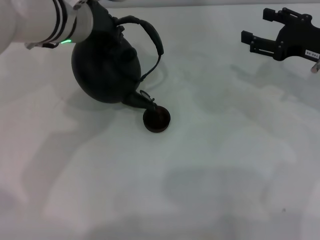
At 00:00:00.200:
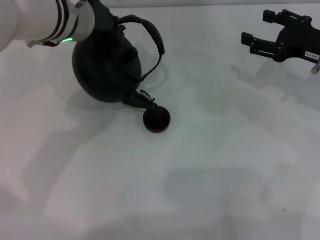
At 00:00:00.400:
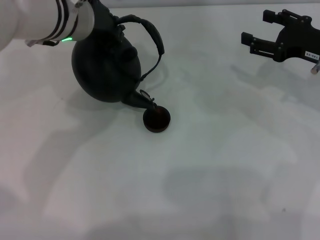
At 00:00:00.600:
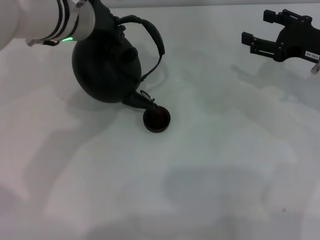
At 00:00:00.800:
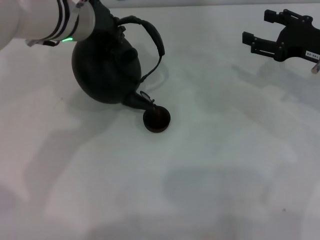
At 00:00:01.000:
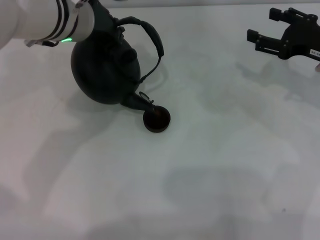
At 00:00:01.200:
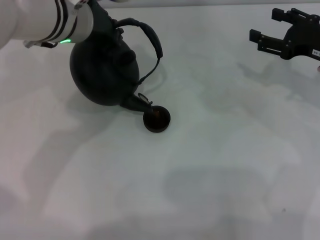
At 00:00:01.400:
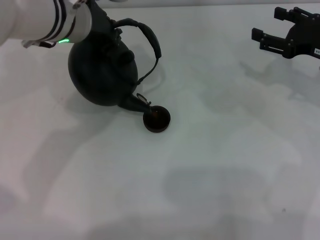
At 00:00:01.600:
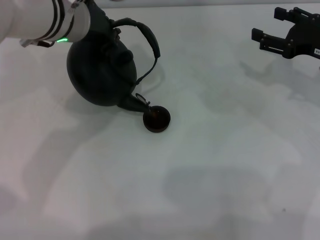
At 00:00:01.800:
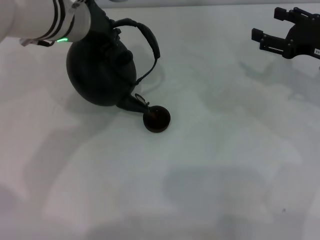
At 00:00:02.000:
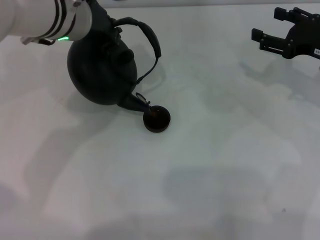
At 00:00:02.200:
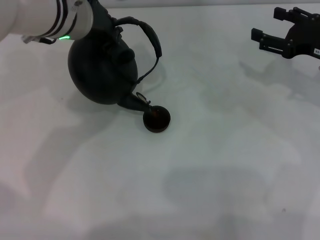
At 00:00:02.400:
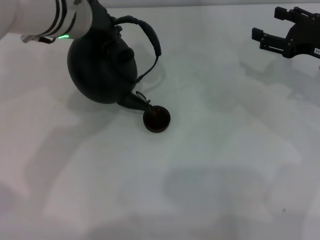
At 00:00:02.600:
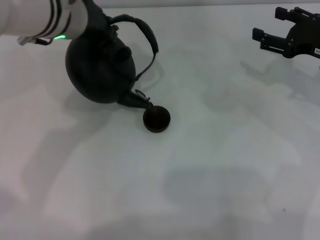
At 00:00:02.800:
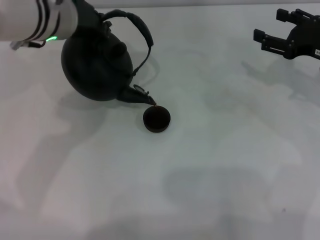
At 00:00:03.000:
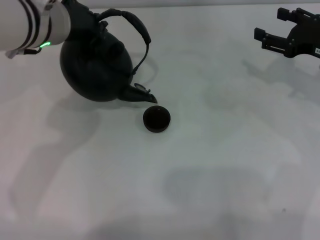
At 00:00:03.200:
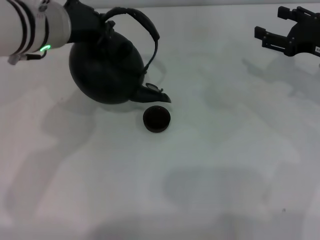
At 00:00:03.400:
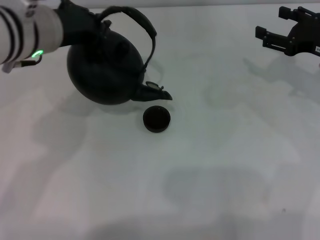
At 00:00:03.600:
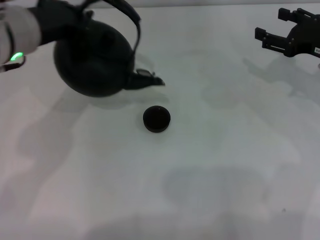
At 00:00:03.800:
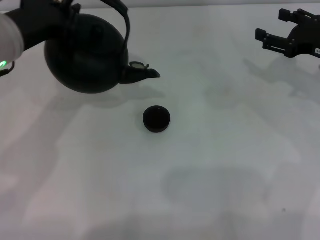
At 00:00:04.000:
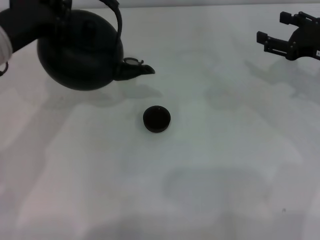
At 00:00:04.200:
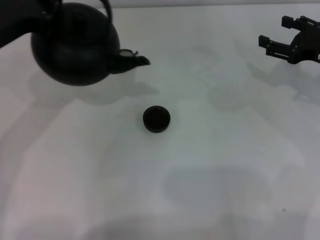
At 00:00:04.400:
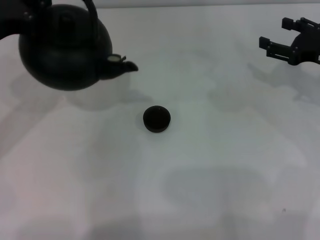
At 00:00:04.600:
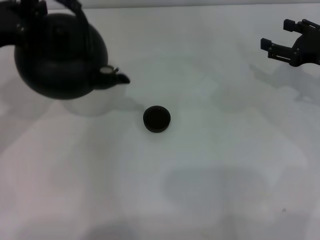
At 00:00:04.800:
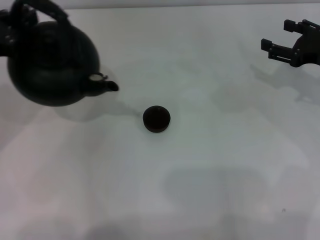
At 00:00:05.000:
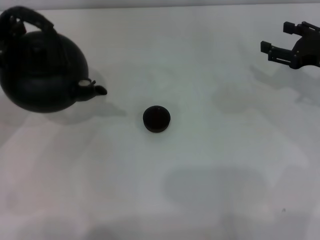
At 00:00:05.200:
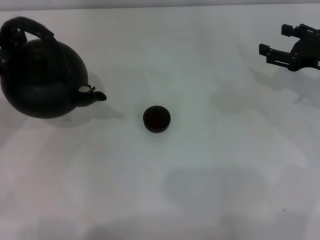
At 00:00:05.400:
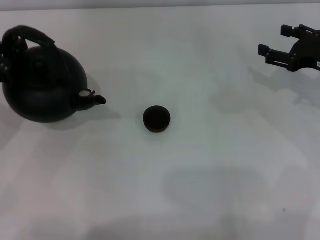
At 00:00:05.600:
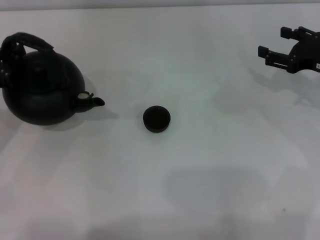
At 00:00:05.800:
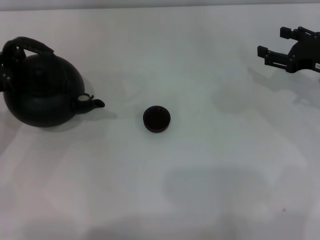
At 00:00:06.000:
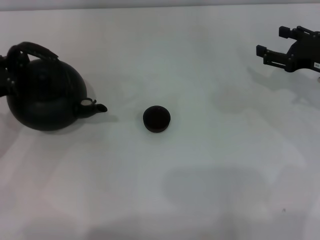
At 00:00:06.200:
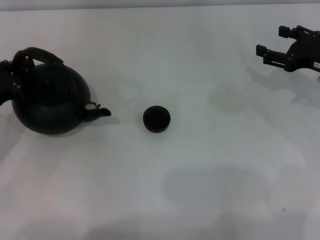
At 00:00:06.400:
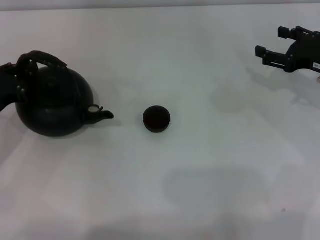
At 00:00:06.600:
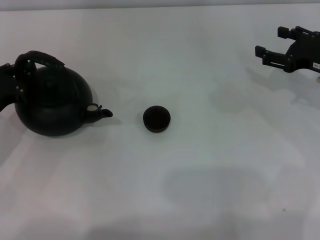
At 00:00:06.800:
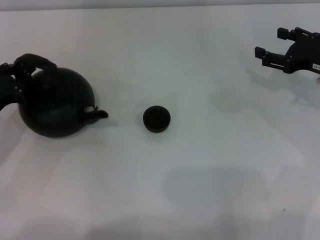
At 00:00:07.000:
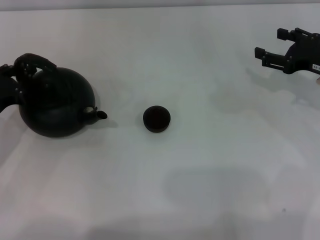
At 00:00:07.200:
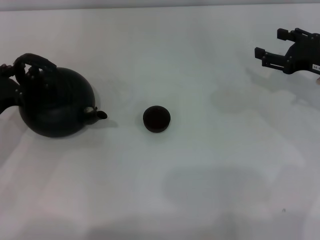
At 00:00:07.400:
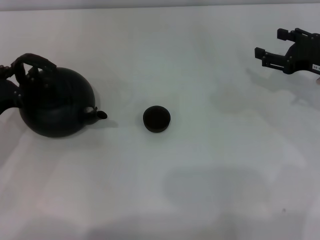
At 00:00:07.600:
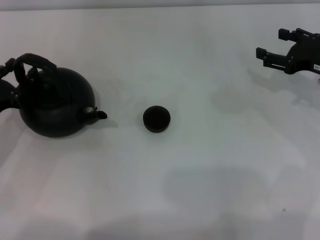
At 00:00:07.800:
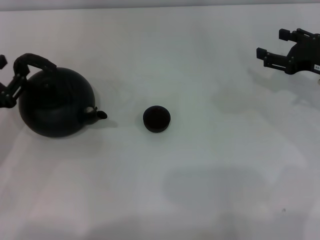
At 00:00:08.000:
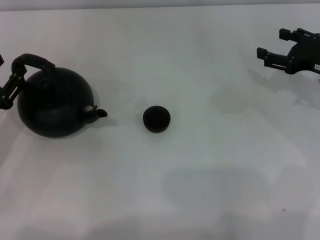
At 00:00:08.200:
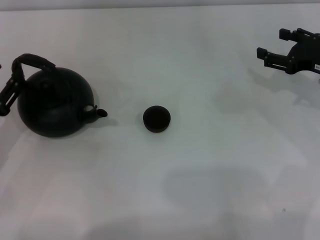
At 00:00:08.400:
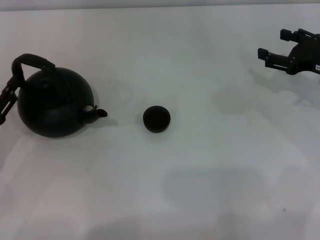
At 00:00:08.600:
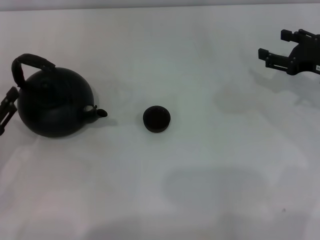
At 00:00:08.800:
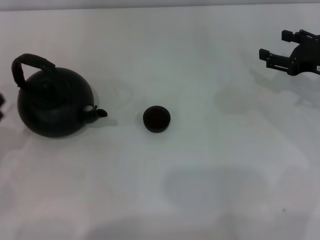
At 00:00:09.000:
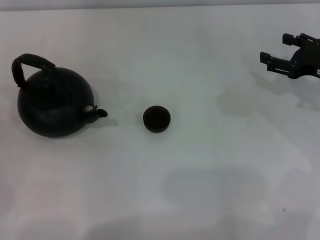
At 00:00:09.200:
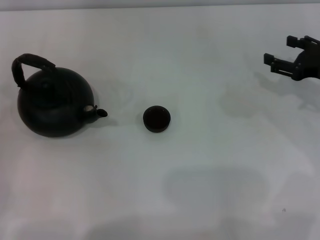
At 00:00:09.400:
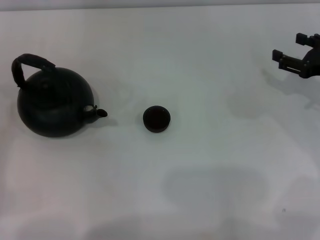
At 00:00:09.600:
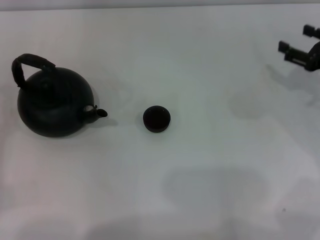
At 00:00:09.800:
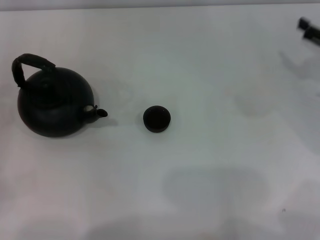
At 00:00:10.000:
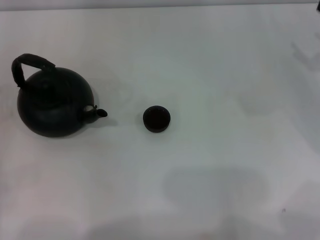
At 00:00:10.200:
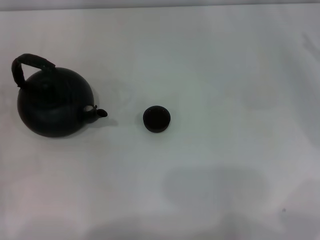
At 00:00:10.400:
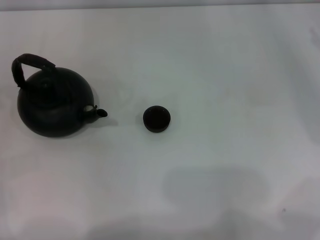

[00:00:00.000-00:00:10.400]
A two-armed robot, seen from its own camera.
Task of the whole recording: Grasp the handle of the teapot with one hand and pour tea into the teacup.
Step, 00:00:00.000 to 00:00:03.600: Pour tea into the teacup with the left gripper.
Step, 00:00:03.800 to 00:00:08.600: Put down the teapot with the left gripper.
00:00:00.000 to 00:00:01.400: Both grippers stay put.
00:00:01.400 to 00:00:03.000: There are only small adjustments of the grippers.
00:00:03.000 to 00:00:04.400: The left gripper heads to the left and backward, covering roughly 15 cm.
00:00:04.400 to 00:00:06.000: The left gripper goes approximately 10 cm downward.
00:00:06.000 to 00:00:07.400: There are only small adjustments of the grippers.
00:00:07.400 to 00:00:09.000: The left gripper goes about 10 cm backward, and opens up.
00:00:09.000 to 00:00:10.400: The right gripper goes approximately 5 cm to the right.
